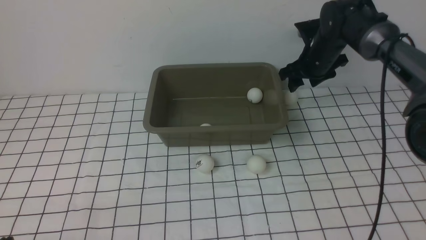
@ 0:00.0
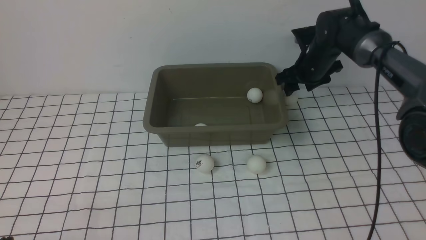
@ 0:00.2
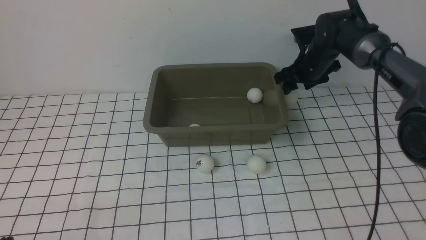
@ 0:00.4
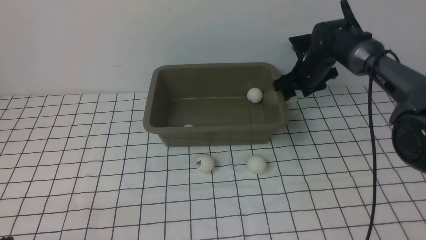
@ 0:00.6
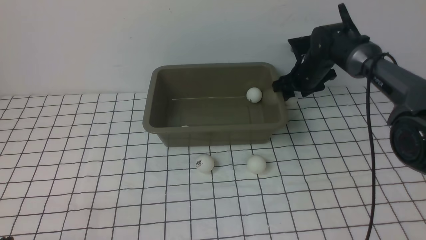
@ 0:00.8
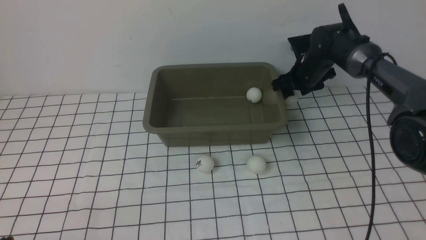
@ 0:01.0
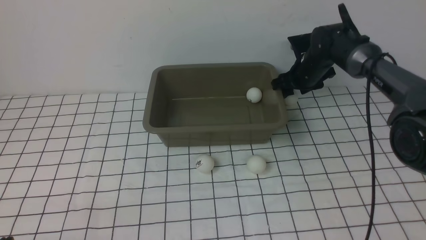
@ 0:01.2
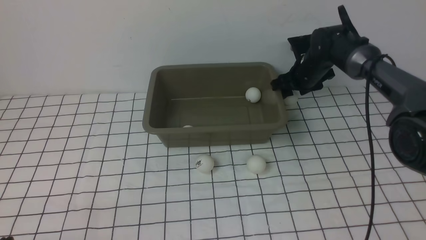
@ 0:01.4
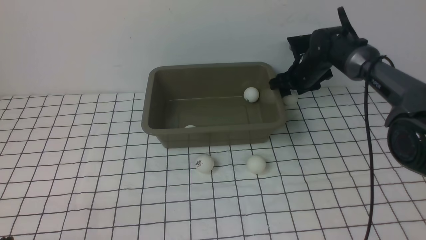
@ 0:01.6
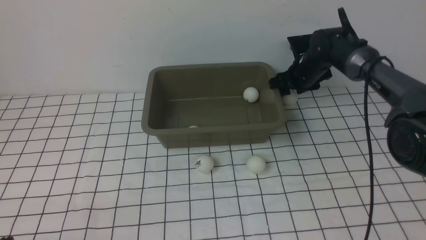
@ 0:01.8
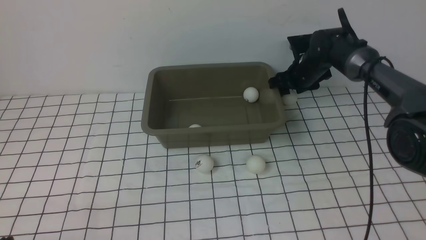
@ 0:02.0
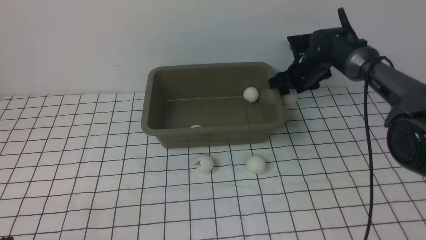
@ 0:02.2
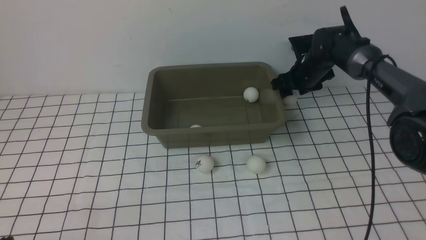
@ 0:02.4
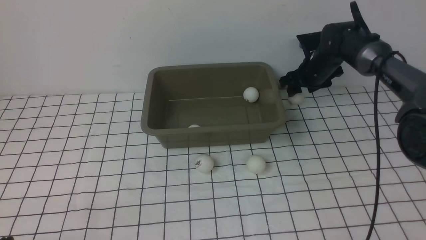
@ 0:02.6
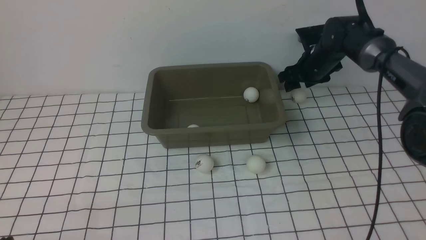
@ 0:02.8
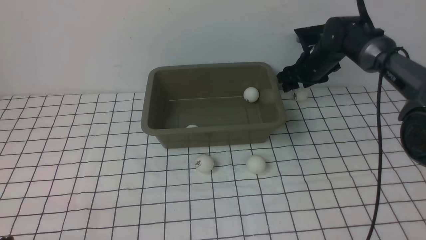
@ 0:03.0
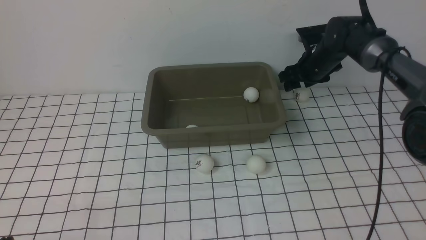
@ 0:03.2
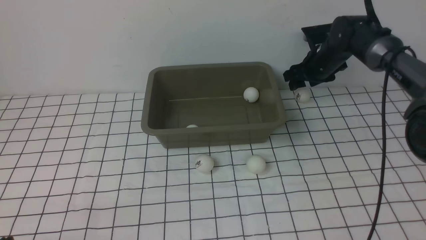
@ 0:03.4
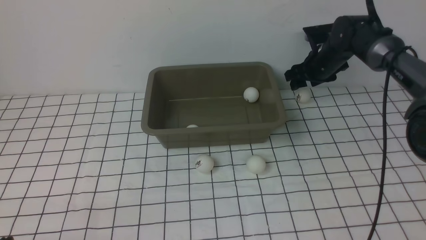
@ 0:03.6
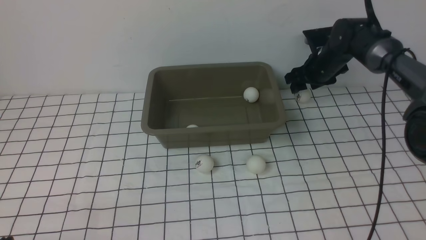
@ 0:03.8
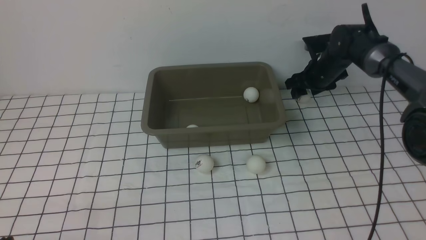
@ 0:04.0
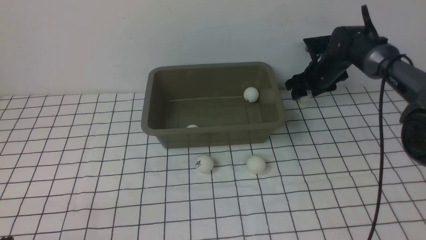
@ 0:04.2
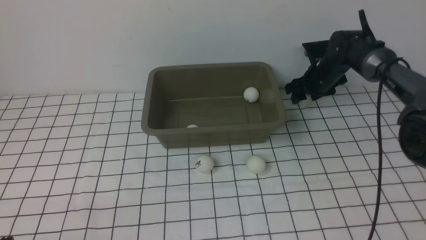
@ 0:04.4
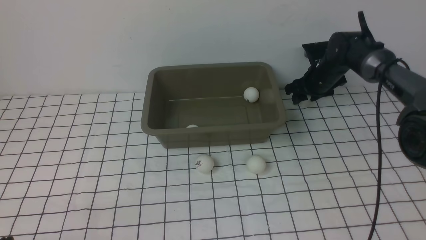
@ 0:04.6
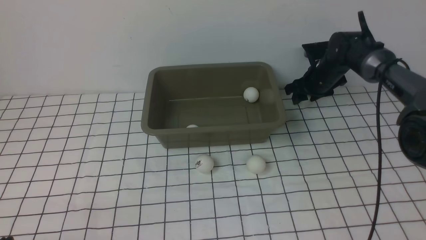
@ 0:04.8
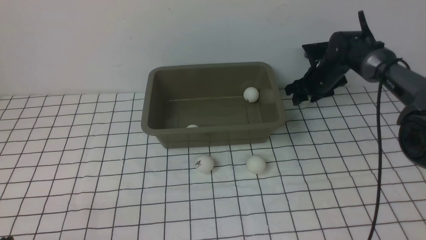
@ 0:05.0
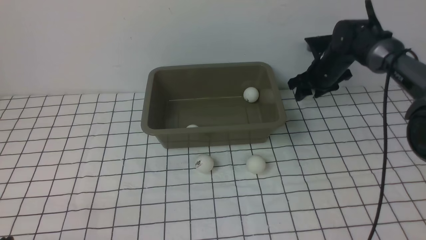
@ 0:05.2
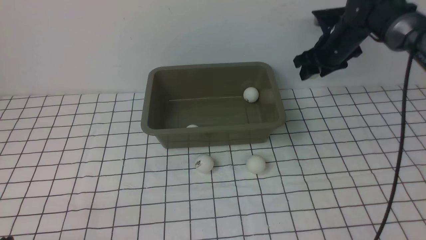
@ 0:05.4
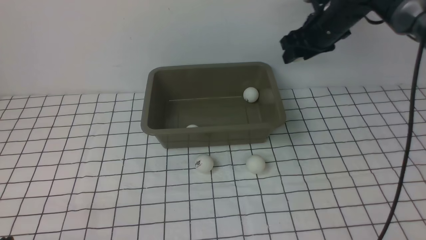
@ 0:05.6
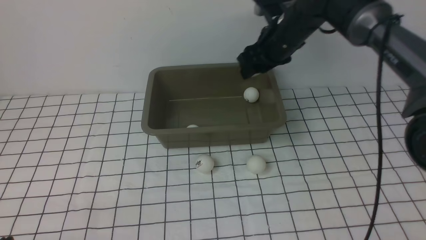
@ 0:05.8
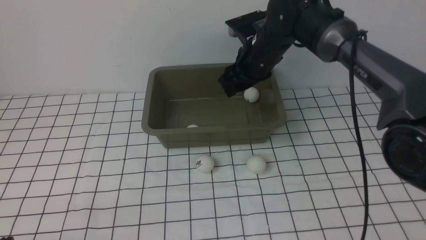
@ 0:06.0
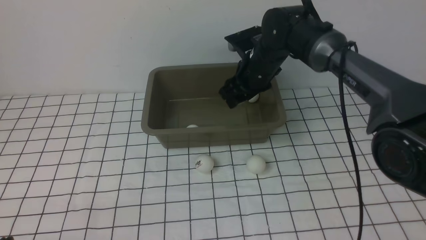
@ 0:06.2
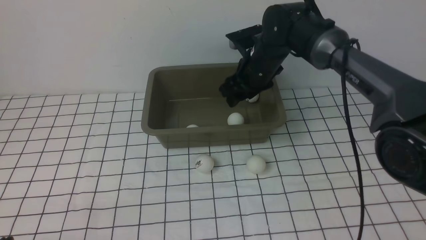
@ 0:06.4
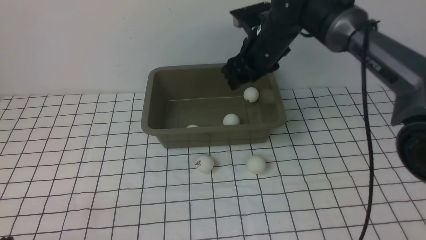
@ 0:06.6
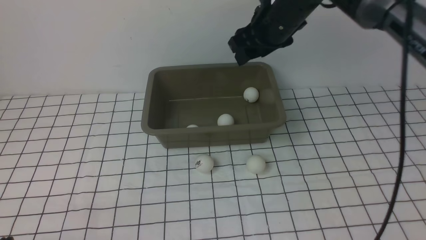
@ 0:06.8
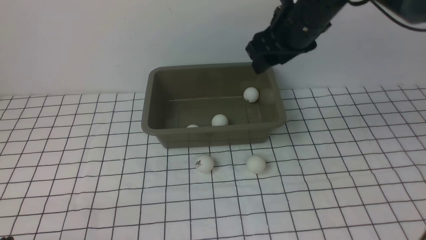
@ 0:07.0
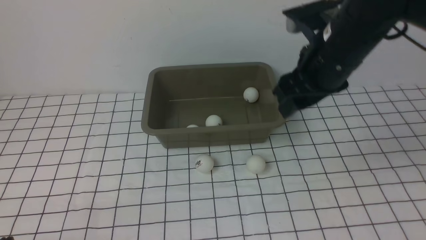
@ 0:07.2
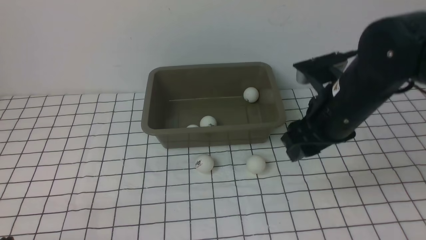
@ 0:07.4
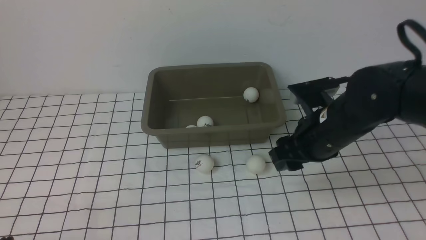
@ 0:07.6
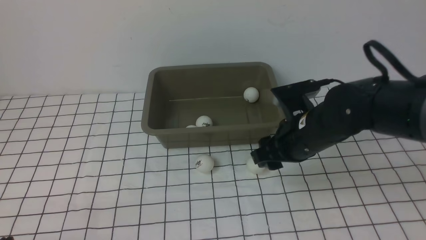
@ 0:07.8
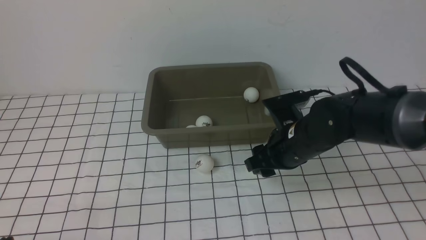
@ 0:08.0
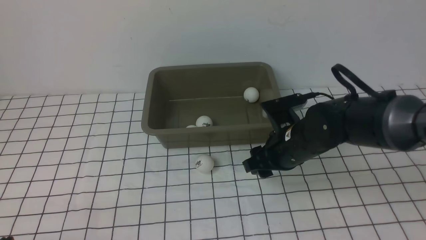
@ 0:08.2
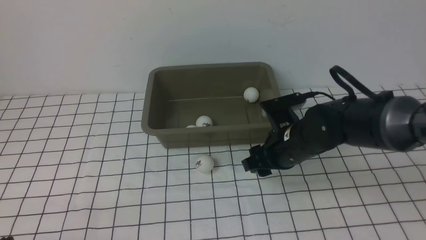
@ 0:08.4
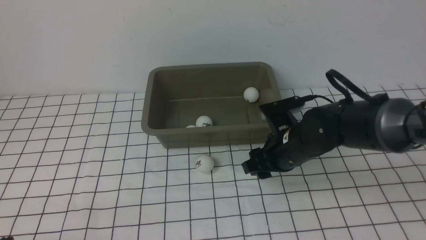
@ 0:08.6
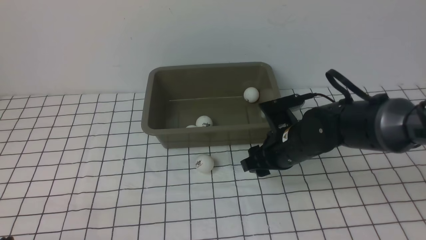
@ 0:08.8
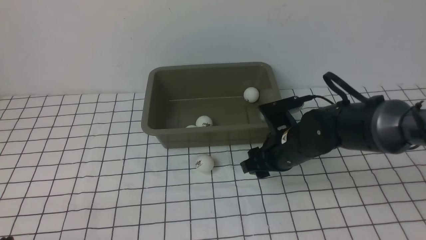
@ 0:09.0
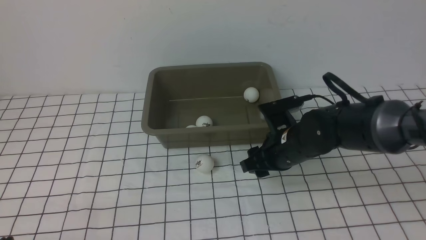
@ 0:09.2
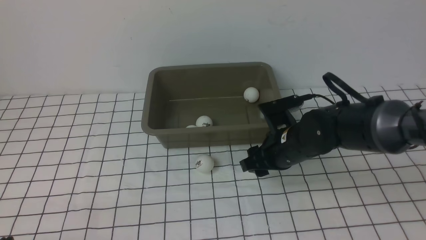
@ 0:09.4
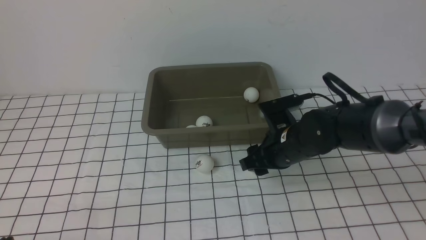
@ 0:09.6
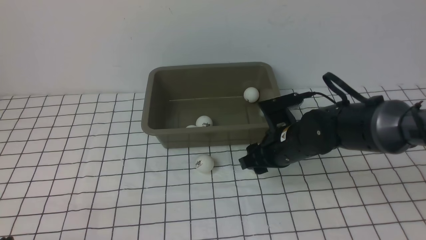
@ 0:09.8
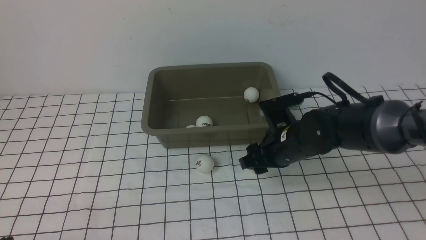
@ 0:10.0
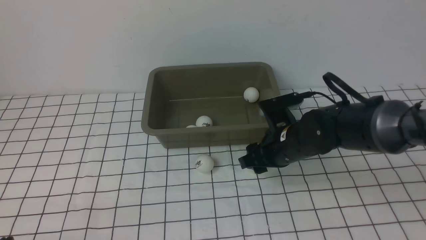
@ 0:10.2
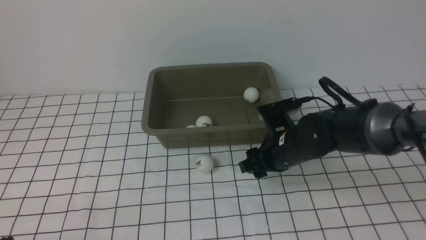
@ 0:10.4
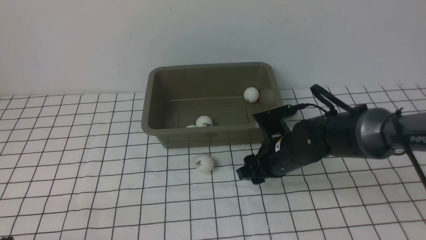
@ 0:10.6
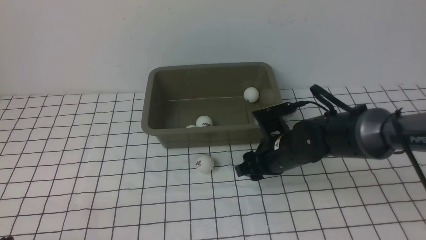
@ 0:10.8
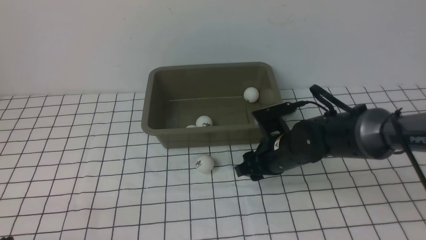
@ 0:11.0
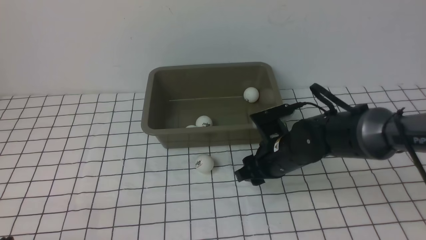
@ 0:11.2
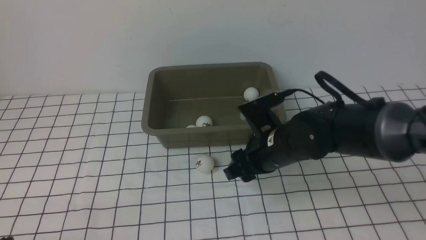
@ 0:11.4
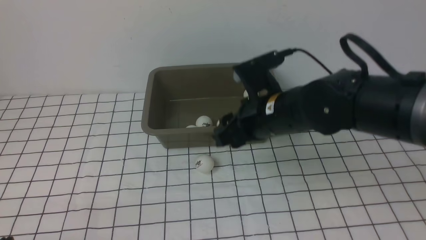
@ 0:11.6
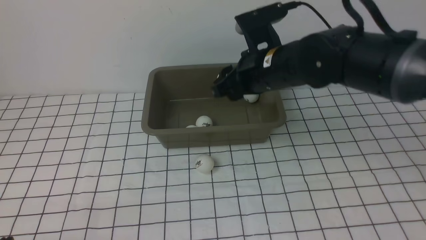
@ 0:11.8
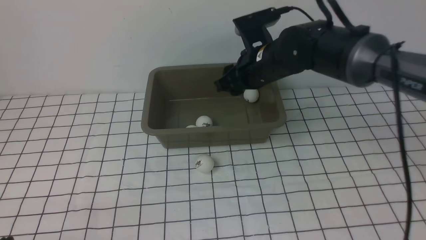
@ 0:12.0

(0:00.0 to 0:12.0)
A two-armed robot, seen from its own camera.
Step, 0:00.0 - 0:05.4: use the right arm to clamp the table tennis ball closest to it.
Step, 0:05.6 - 0:06.4: use the right arm to put the table tennis ball into the box.
Step, 0:06.8 - 0:11.4: use the right arm to clamp the table tennis ball closest to it.
0:00.0 - 0:01.6: The right gripper ends up about 5 cm from where it was.
0:01.6 - 0:04.4: The grippers stay close to where they were, moving slightly.
0:04.4 - 0:06.0: The right gripper goes roughly 20 cm to the left, upward and backward.
0:06.0 - 0:07.6: The right gripper shifts about 15 cm backward.
0:07.6 - 0:09.0: The right gripper heads downward, covering about 10 cm.
0:09.0 - 0:10.4: Both grippers stay put.
0:10.4 - 0:12.0: The right gripper is displaced forward and upward by approximately 15 cm.

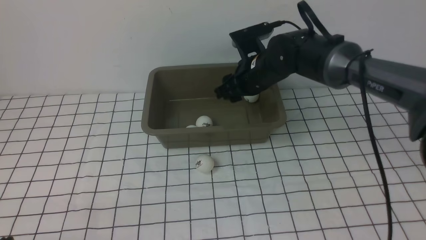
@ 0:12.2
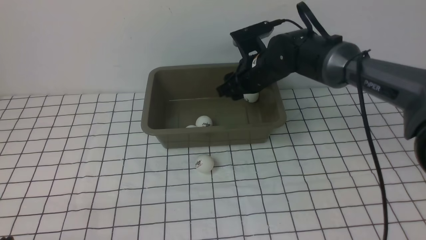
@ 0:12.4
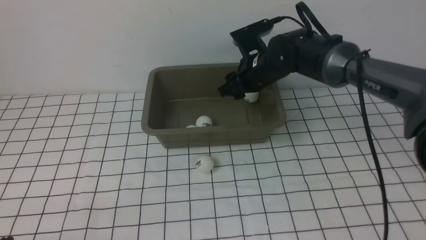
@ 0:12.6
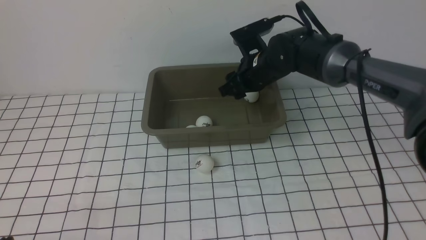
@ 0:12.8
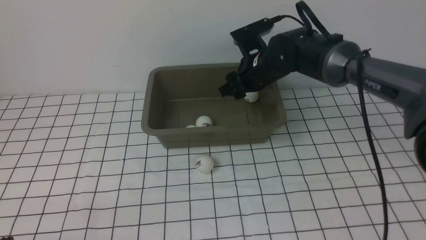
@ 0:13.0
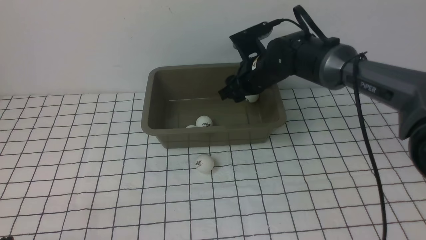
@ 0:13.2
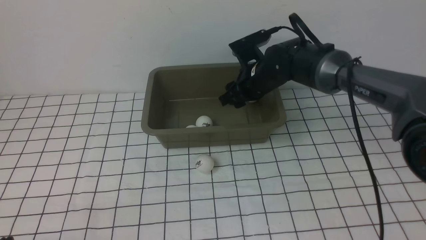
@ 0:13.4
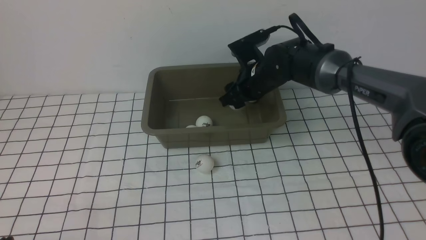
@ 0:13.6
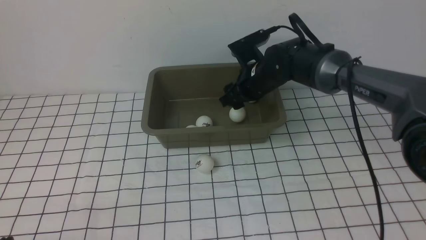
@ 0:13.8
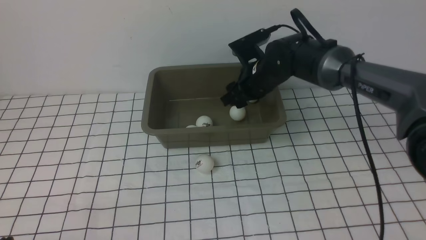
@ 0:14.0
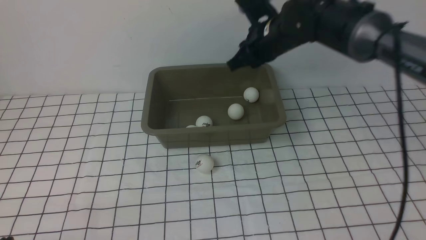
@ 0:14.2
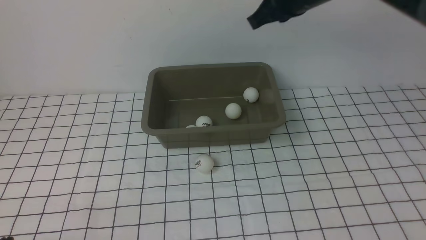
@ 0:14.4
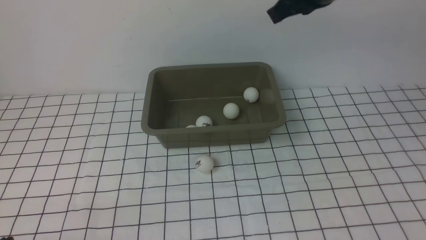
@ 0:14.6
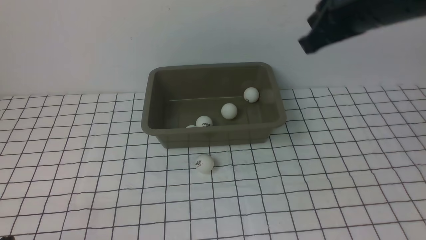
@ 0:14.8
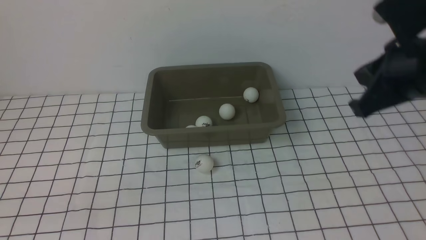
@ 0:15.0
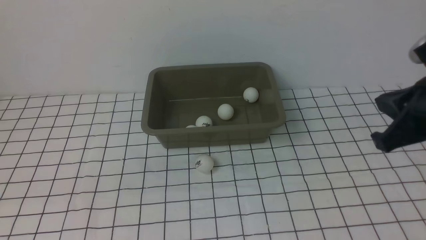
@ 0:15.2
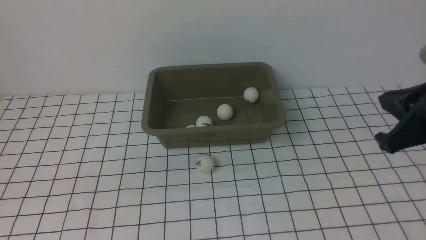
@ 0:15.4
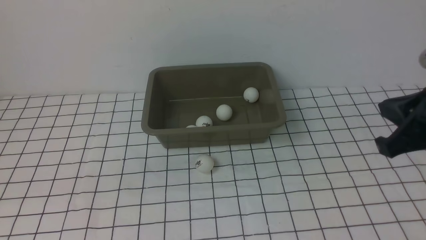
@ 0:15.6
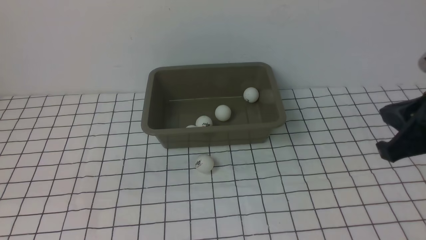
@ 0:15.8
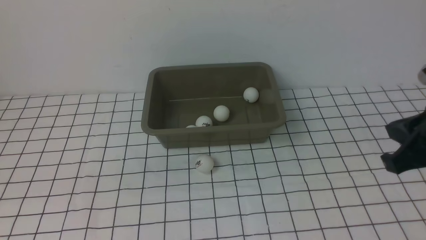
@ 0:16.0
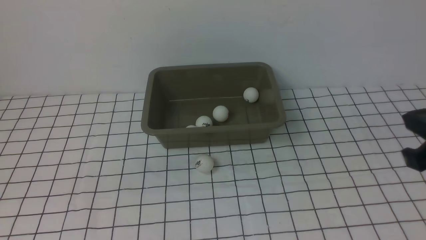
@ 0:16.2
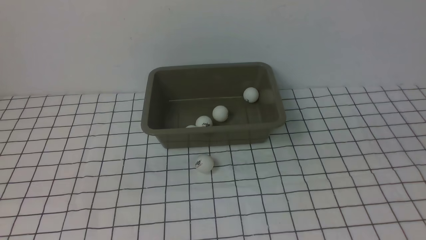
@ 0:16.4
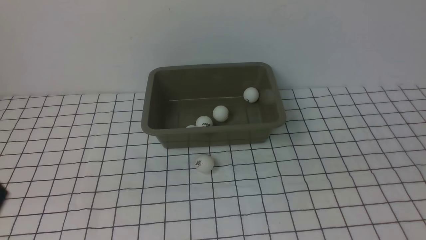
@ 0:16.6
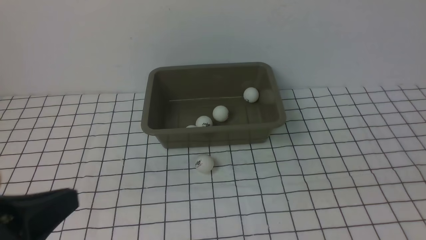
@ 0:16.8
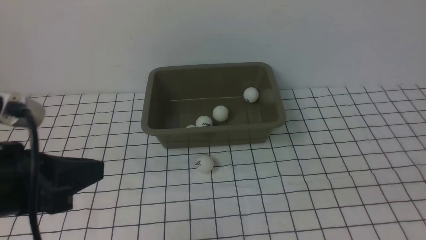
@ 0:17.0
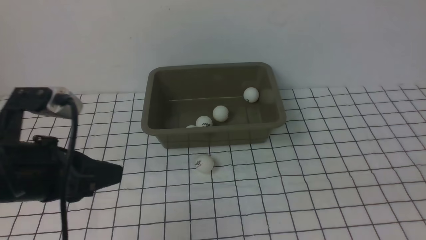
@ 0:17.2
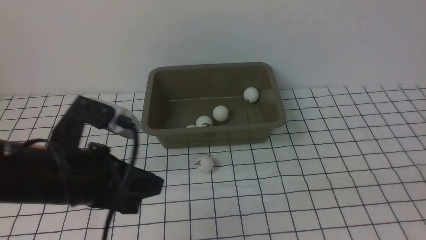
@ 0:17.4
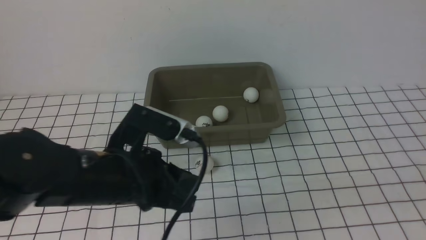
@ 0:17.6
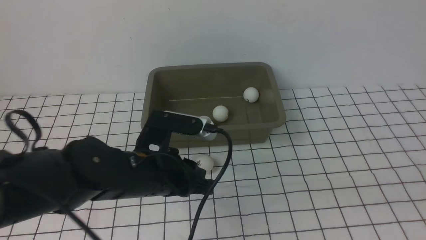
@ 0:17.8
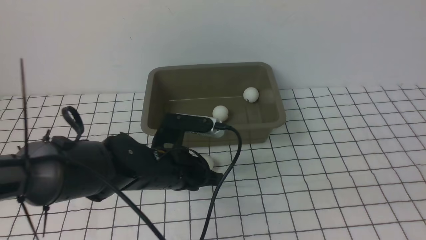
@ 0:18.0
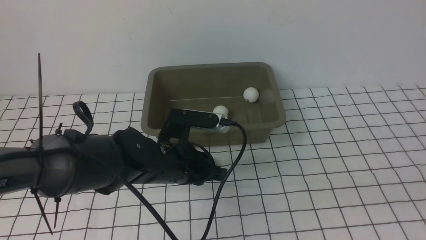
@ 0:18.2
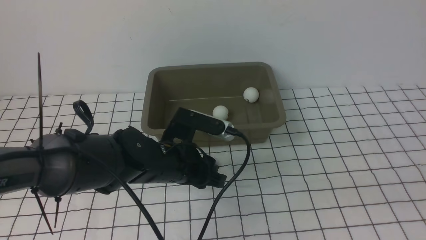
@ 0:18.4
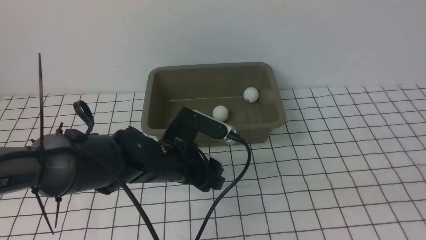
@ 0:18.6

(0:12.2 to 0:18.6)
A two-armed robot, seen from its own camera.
Step, 0:12.2 - 0:13.8: use the right arm to put the table tennis ball into the box.
0:12.2 - 0:13.8: The grippers move only a little.
0:13.8 - 0:15.4: The right gripper shifts approximately 30 cm backward, to the right and upward, and closes its fingers. Meanwhile the left gripper is displaced upward by approximately 15 cm.
0:15.4 - 0:17.0: The right gripper is displaced backward and to the right by some 20 cm. Meanwhile the left gripper goes some 15 cm forward.
0:17.0 - 0:18.6: The left gripper moves downward, to the right and forward, approximately 25 cm, and opens up.
